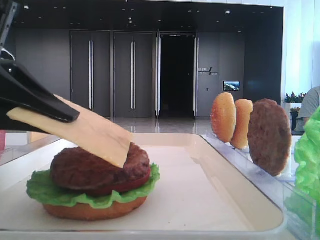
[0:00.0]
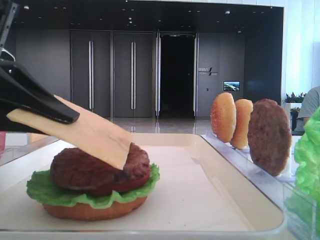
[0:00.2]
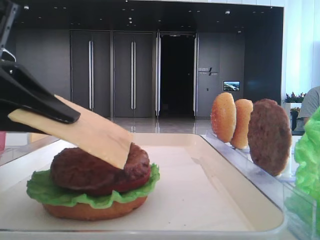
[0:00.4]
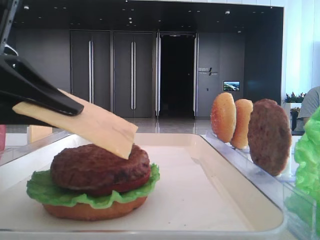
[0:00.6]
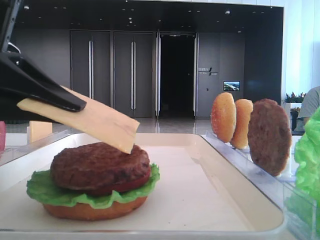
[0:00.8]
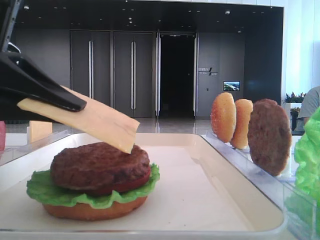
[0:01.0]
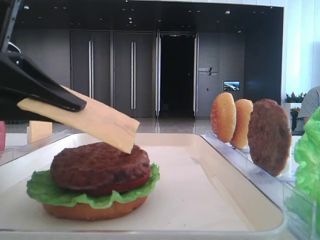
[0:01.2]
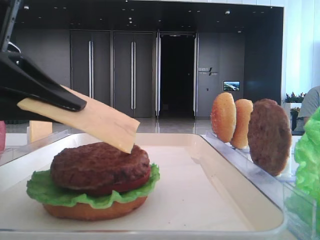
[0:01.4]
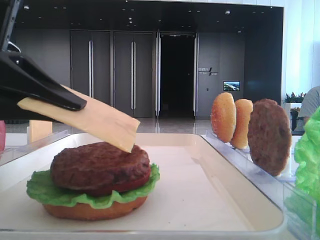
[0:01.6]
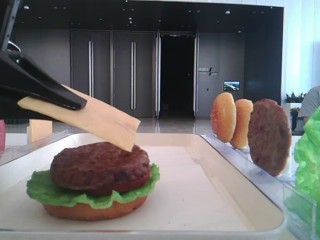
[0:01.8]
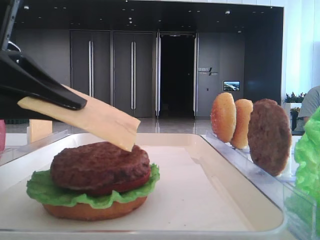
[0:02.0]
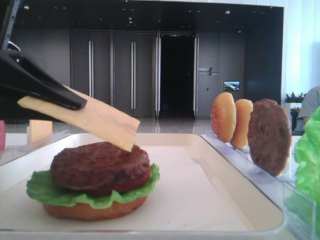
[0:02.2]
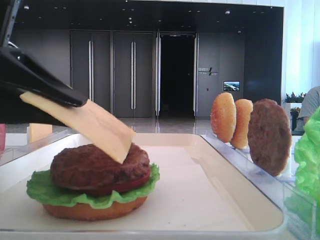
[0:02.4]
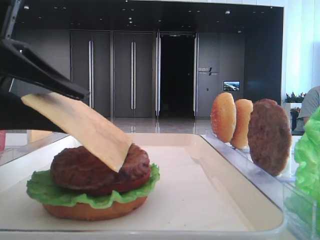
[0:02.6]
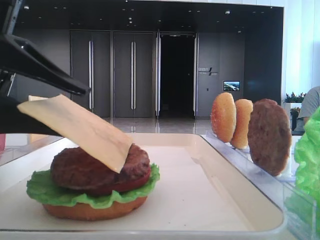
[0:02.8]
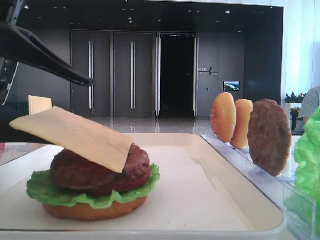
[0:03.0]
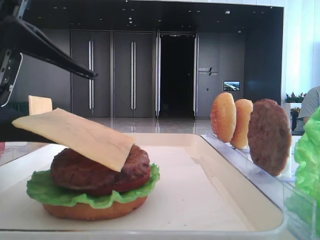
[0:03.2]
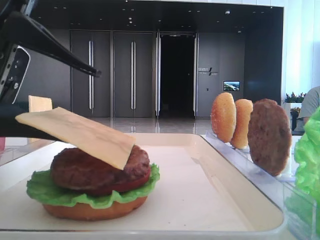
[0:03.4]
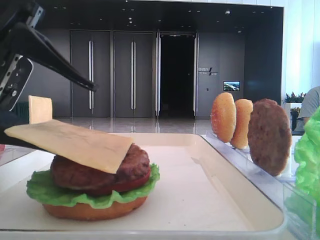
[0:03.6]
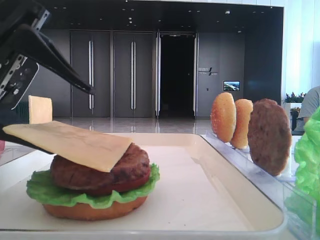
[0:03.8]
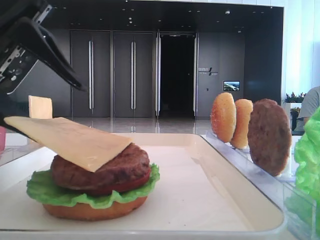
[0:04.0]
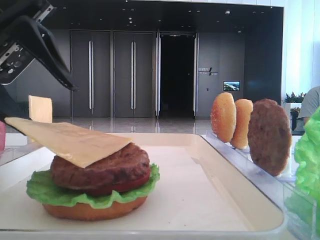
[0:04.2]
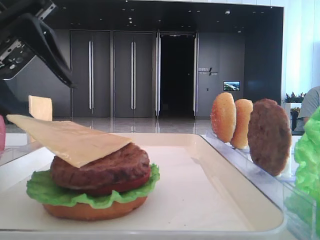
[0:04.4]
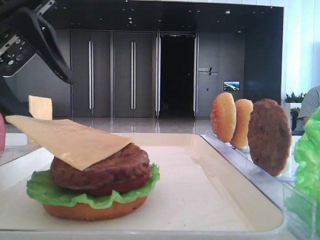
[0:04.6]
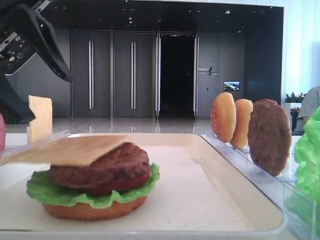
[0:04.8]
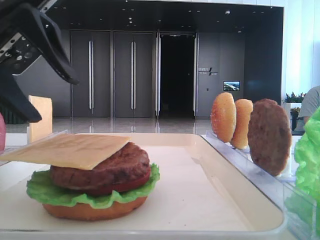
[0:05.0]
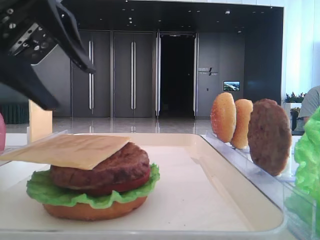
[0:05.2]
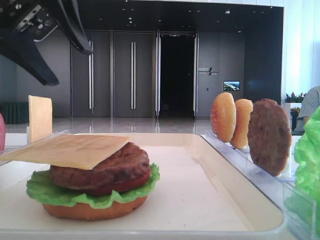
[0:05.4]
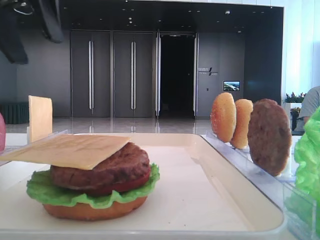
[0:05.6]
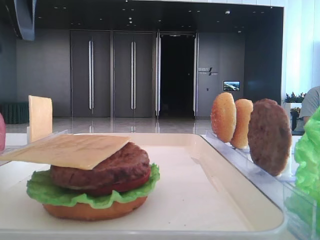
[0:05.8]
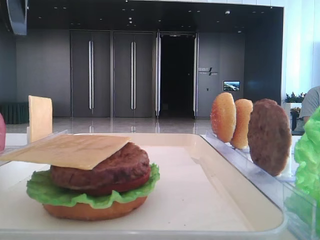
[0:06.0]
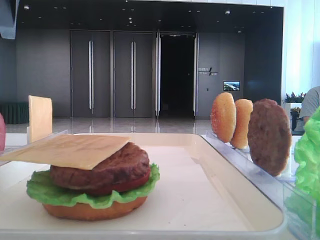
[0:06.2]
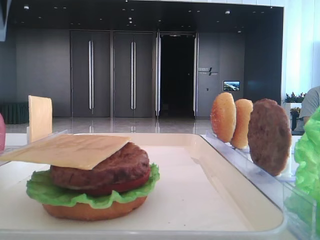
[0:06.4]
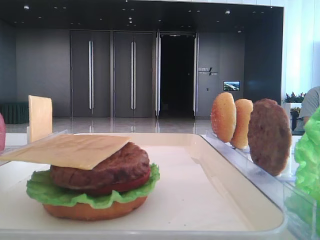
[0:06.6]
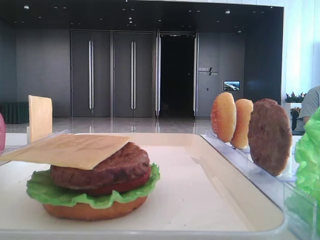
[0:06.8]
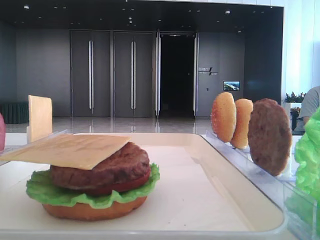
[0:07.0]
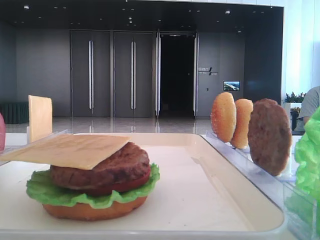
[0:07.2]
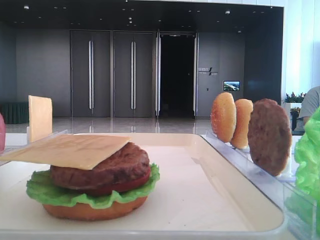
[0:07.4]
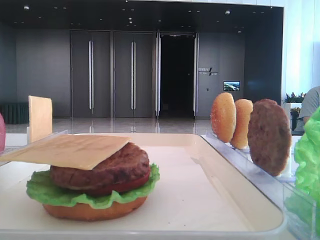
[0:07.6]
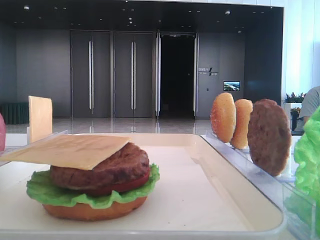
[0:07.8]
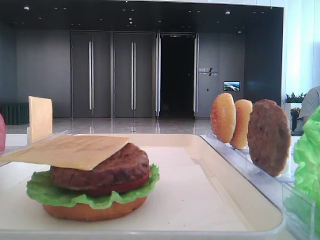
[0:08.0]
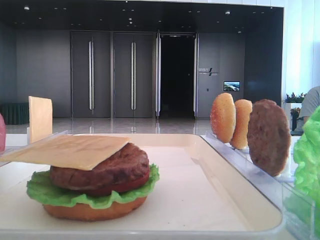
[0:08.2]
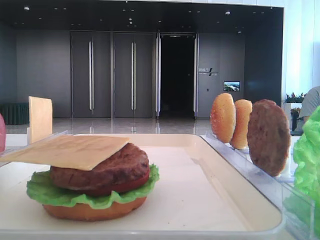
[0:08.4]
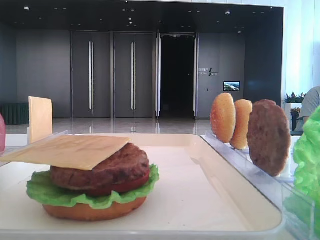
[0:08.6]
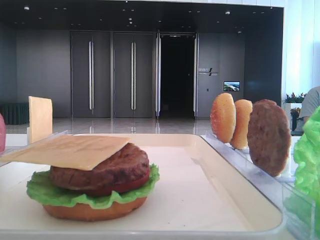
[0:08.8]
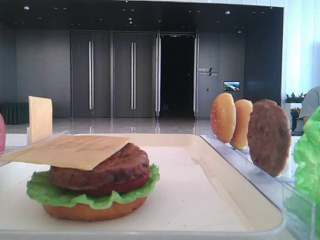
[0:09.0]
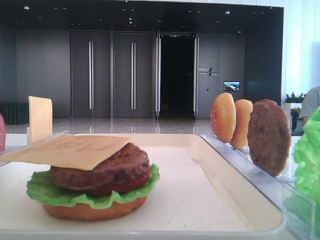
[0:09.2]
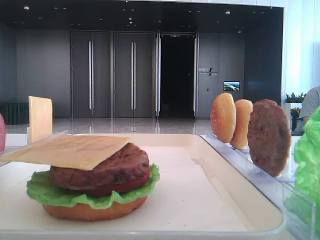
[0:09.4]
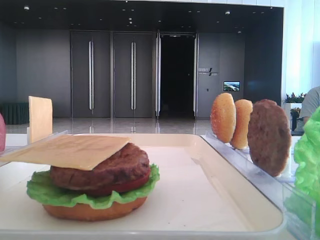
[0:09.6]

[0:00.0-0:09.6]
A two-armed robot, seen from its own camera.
Step, 0:00.0 to 0:04.6: Place the cheese slice on the patty with the left hand.
0:00.0 to 0:01.6: Both grippers stay put.
0:01.6 to 0:03.2: The left gripper opens up.
0:03.2 to 0:04.8: The left gripper heads forward and upward, covering roughly 10 cm.
0:04.8 to 0:06.4: The left gripper travels upward by roughly 10 cm.
0:06.4 to 0:08.0: The left gripper goes about 20 cm backward.

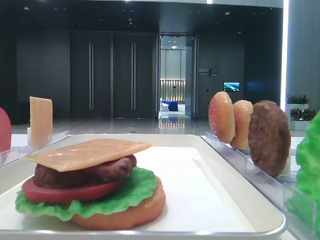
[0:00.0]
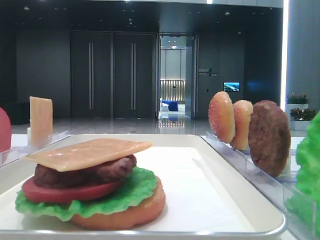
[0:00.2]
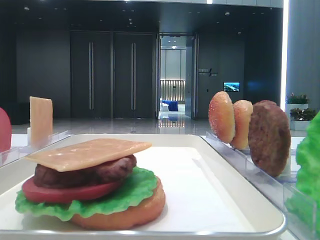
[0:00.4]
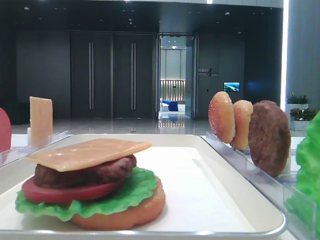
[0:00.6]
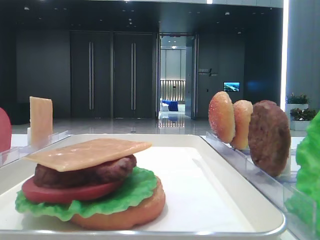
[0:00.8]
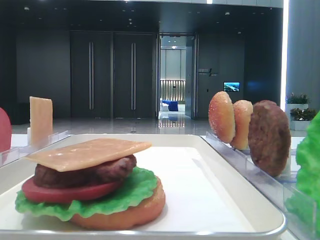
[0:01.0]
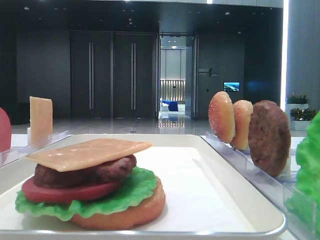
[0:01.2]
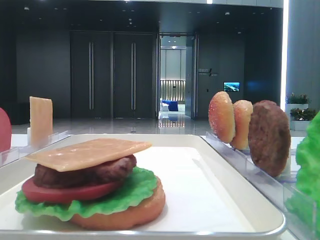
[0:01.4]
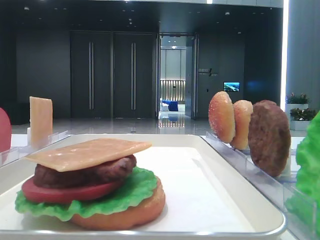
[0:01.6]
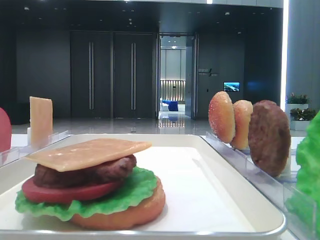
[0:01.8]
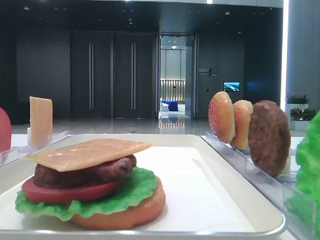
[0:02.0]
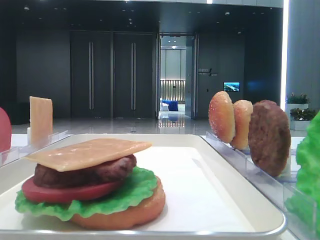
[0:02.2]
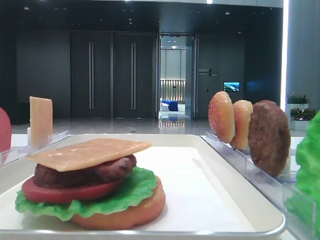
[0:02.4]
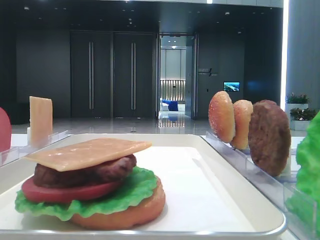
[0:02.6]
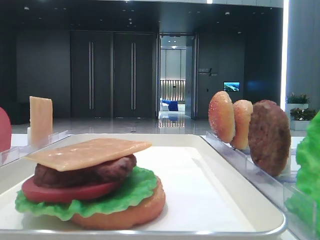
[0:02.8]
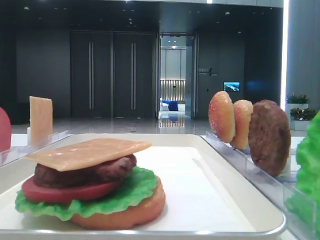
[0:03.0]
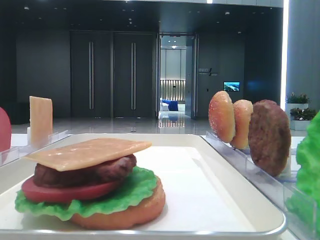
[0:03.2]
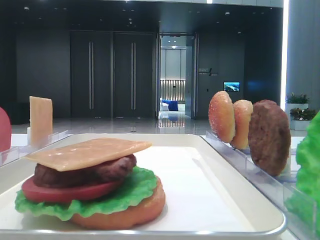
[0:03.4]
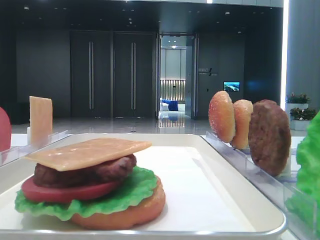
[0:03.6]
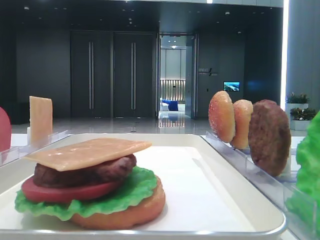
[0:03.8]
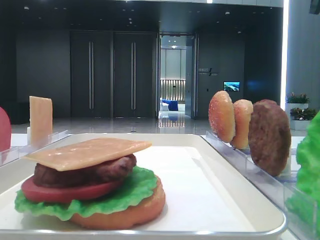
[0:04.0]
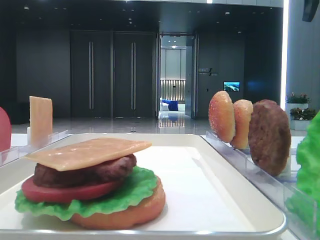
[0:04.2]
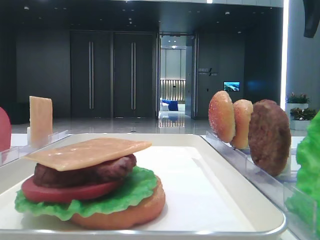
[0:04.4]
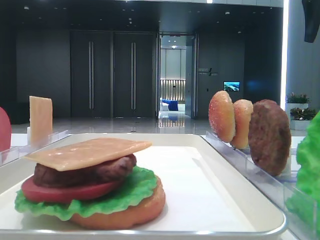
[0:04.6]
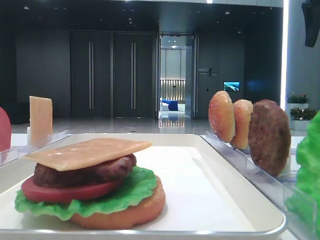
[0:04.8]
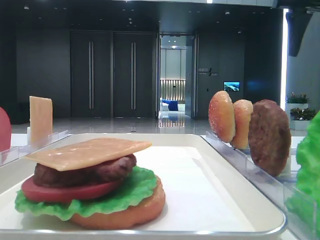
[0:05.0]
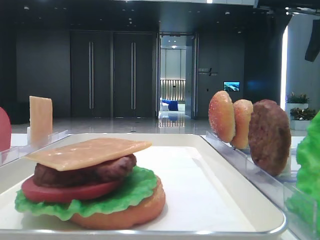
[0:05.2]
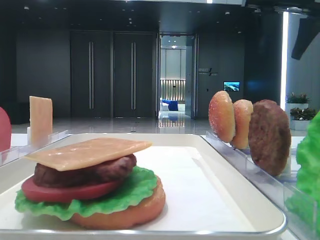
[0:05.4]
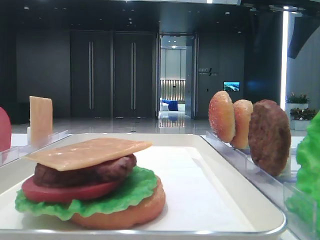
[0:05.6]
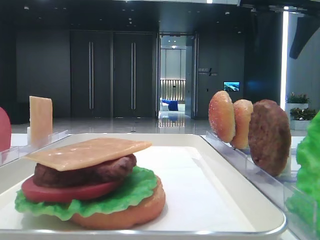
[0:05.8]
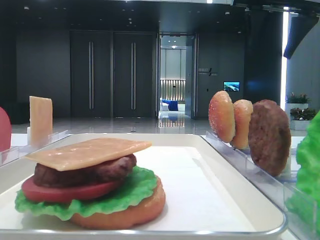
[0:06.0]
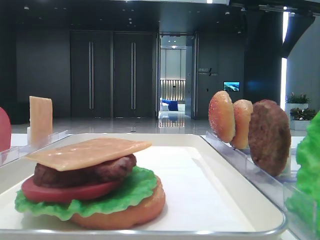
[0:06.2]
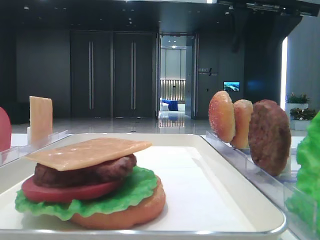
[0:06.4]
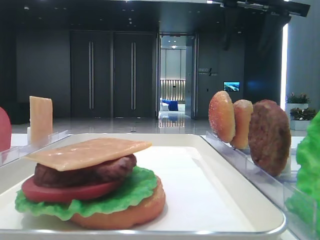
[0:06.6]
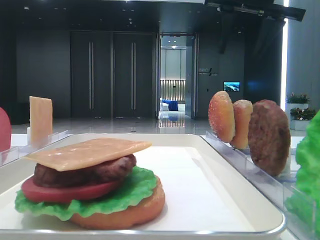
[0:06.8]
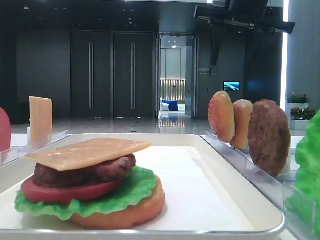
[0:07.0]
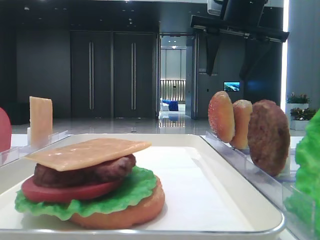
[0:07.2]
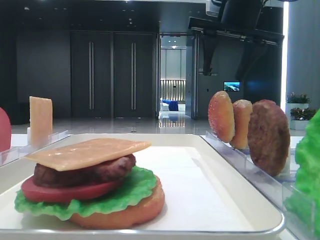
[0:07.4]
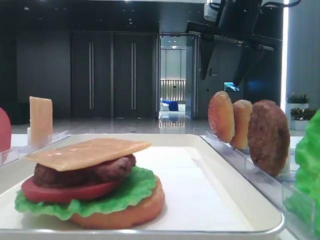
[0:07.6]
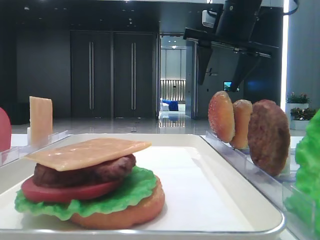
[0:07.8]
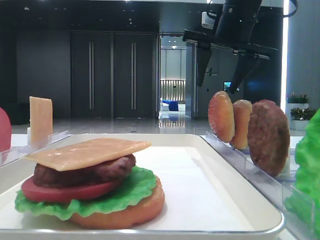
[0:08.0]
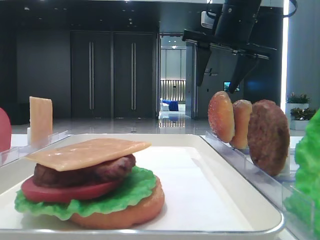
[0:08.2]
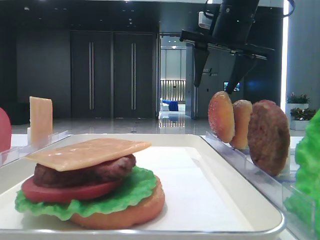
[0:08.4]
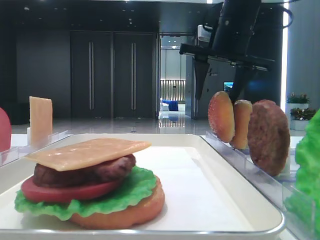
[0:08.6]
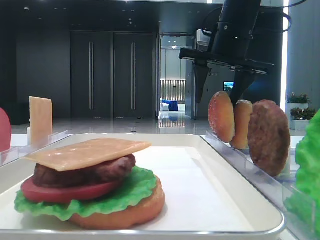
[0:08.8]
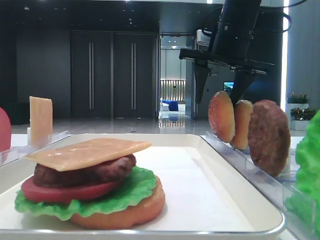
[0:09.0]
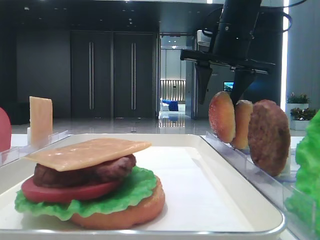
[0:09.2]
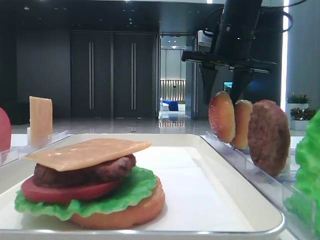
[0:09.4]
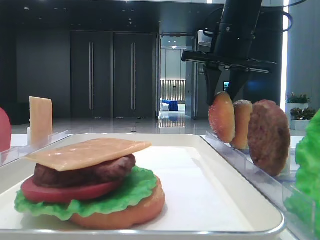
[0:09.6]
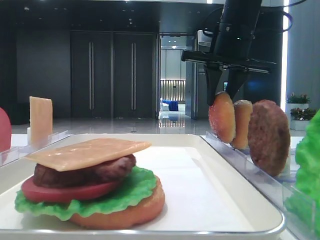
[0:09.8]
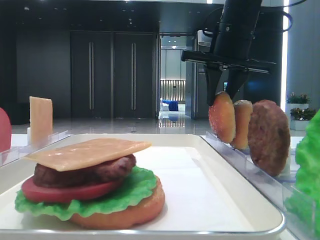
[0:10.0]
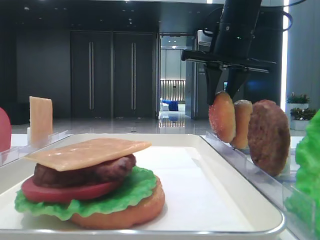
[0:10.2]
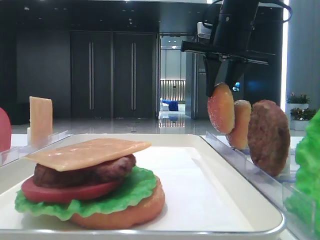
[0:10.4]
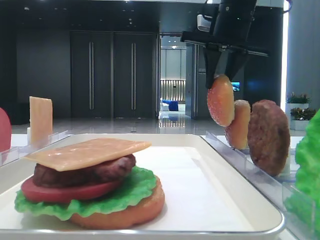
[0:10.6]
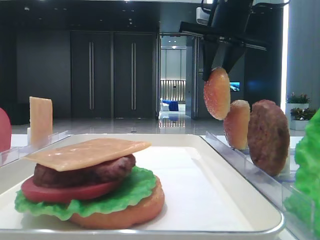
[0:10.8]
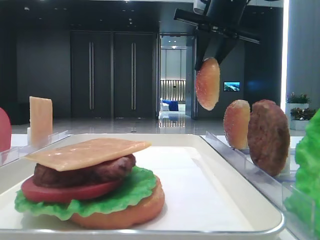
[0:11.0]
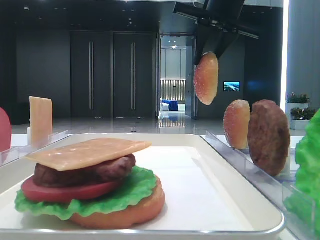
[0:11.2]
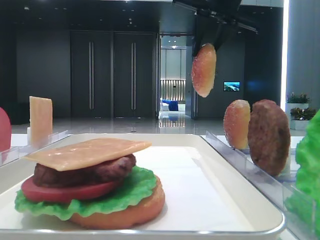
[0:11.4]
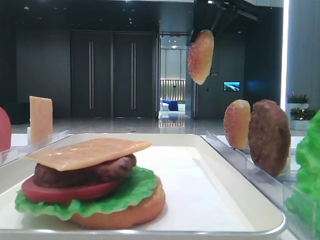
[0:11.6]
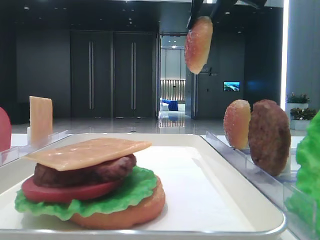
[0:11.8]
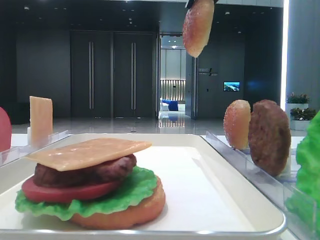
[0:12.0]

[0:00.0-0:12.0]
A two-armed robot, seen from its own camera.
Step, 0:00.0 to 0:09.6: Pick up the top bread slice with the right hand.
0:03.0 to 0:04.4: The right gripper travels forward by some 15 cm.
0:04.4 to 0:06.0: The right gripper goes roughly 10 cm to the left.
0:06.0 to 0:07.6: The right gripper is displaced to the left by roughly 5 cm.
0:07.6 to 0:09.0: The grippers make only small movements.
0:09.0 to 0:10.4: The right gripper closes its fingers.
0:10.4 to 0:12.0: The right gripper is displaced upward and backward by some 15 cm.

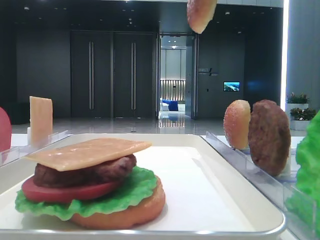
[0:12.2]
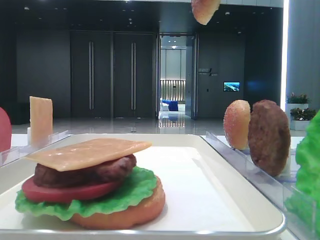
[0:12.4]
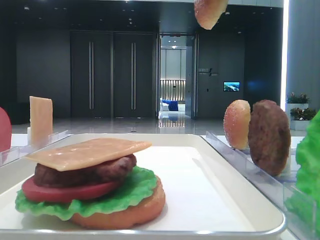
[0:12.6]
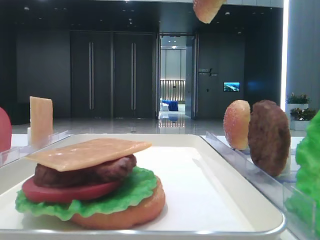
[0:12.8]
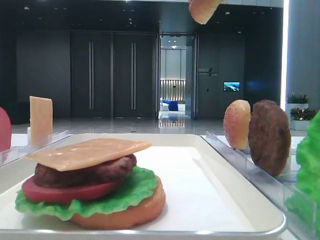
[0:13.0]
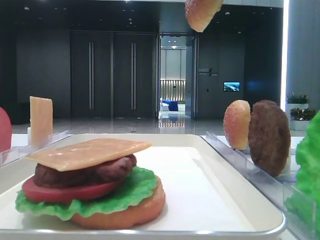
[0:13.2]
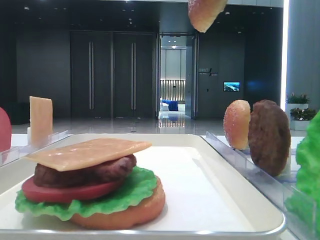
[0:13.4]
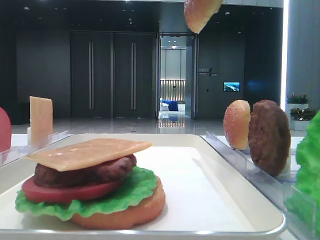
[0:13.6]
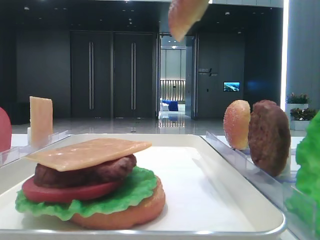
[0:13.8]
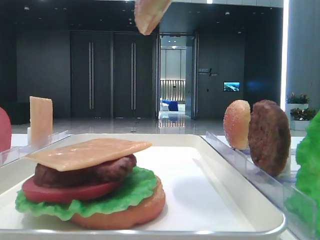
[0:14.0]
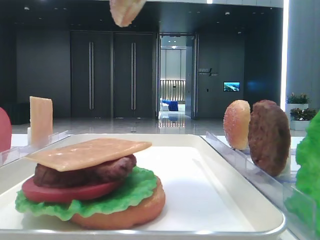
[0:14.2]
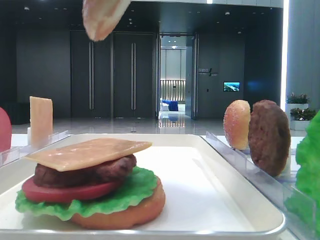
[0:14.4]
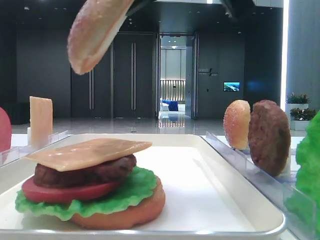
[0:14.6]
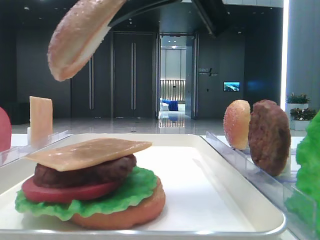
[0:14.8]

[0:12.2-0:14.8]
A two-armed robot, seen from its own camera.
0:12.2 to 0:13.4: The right gripper heads backward, covering some 10 cm.
0:13.4 to 0:14.8: The right gripper is displaced downward and to the left by about 10 cm.
